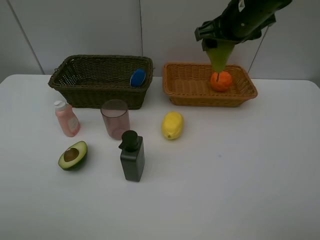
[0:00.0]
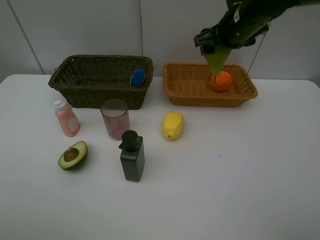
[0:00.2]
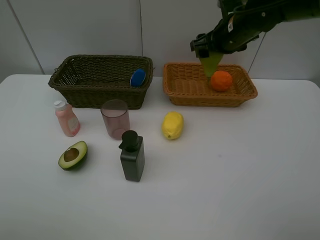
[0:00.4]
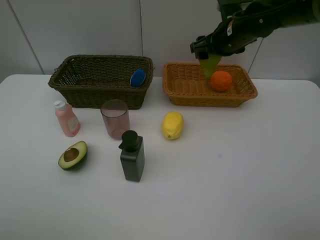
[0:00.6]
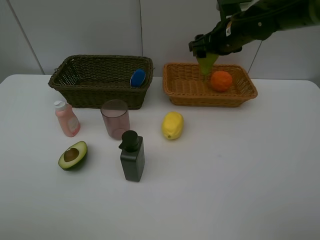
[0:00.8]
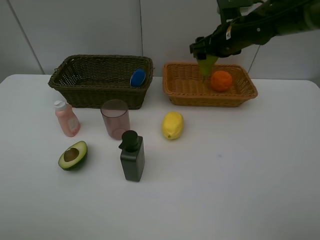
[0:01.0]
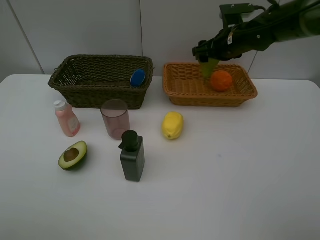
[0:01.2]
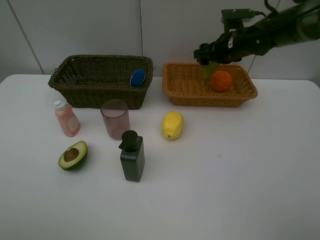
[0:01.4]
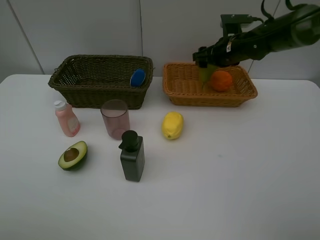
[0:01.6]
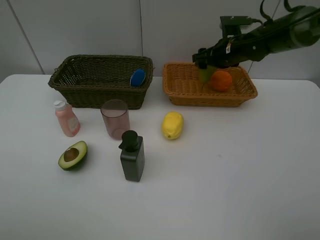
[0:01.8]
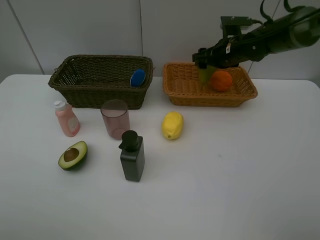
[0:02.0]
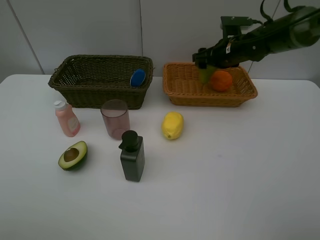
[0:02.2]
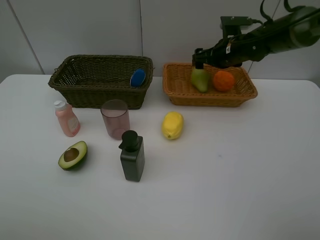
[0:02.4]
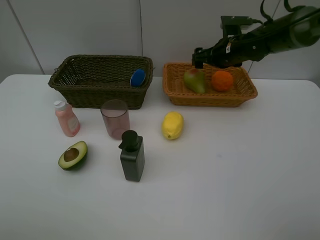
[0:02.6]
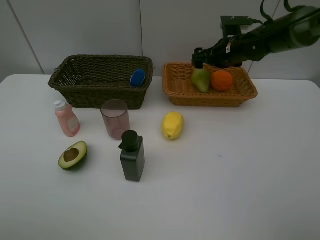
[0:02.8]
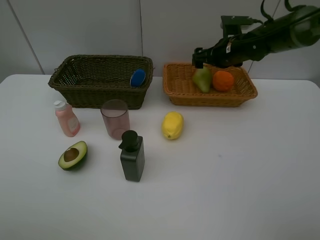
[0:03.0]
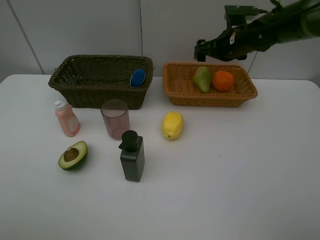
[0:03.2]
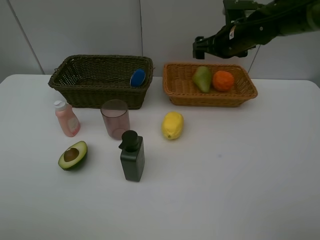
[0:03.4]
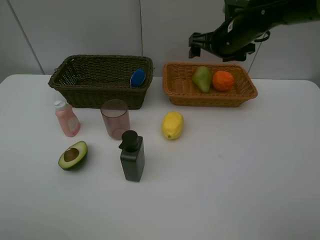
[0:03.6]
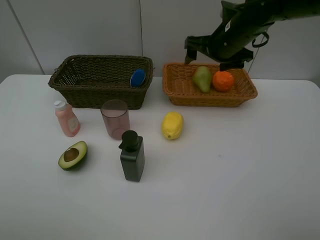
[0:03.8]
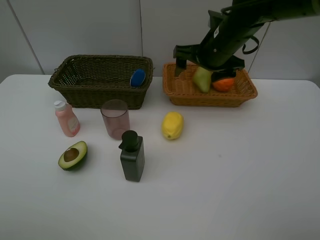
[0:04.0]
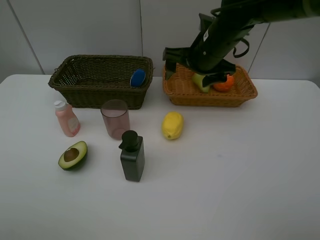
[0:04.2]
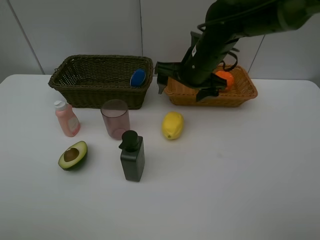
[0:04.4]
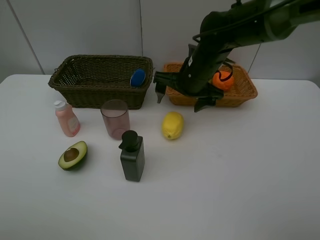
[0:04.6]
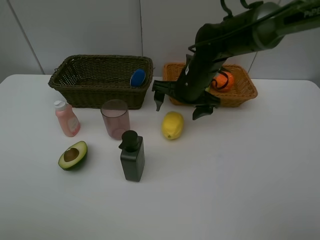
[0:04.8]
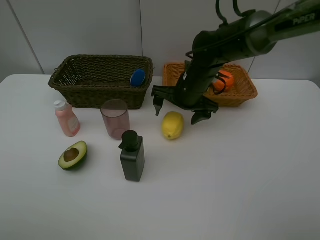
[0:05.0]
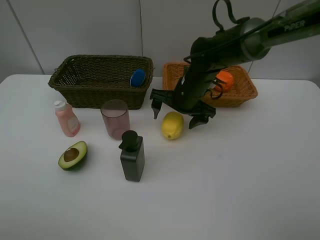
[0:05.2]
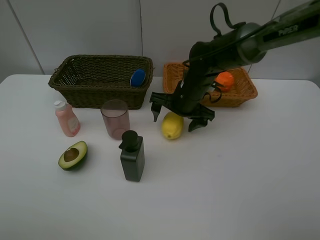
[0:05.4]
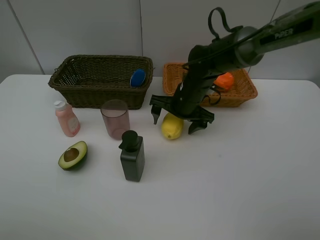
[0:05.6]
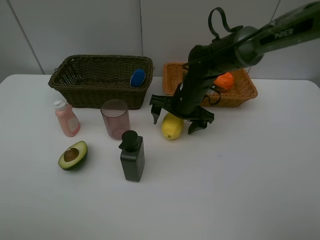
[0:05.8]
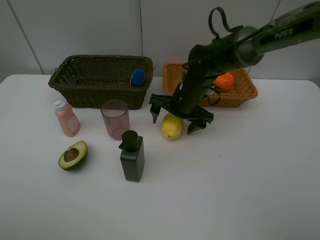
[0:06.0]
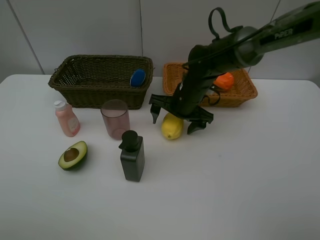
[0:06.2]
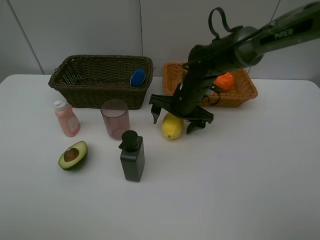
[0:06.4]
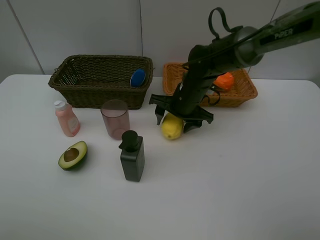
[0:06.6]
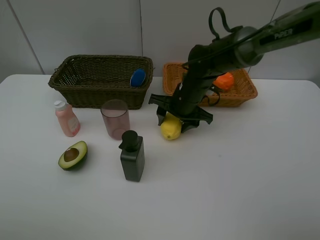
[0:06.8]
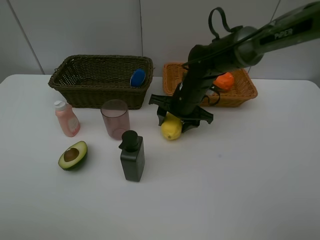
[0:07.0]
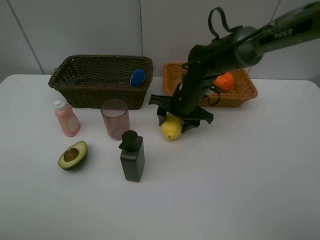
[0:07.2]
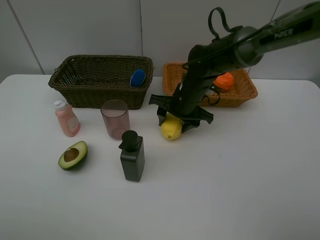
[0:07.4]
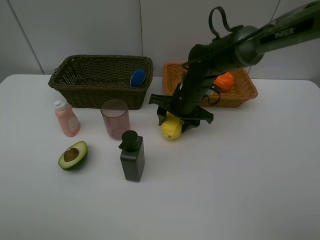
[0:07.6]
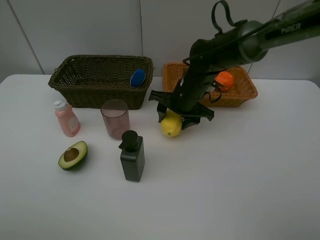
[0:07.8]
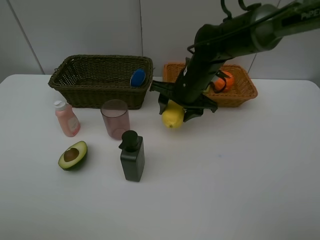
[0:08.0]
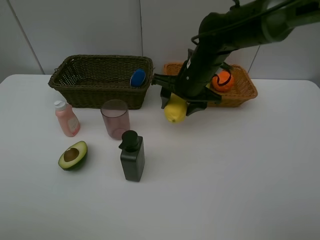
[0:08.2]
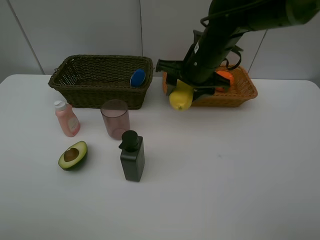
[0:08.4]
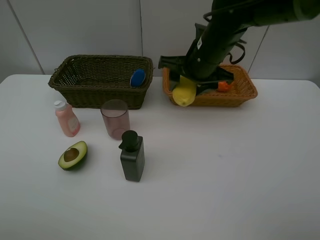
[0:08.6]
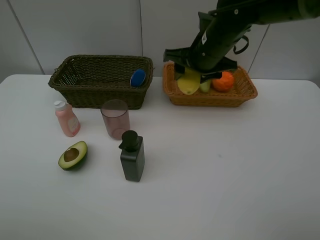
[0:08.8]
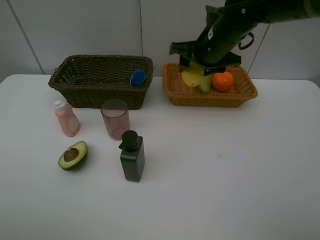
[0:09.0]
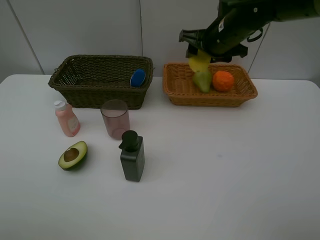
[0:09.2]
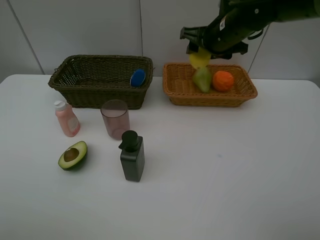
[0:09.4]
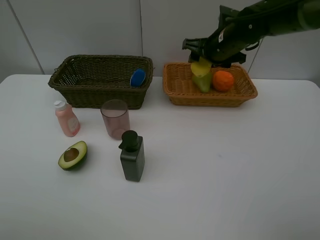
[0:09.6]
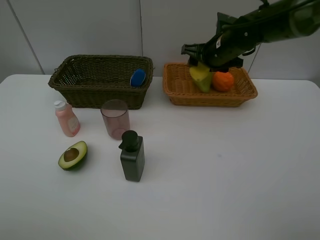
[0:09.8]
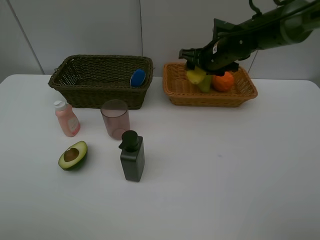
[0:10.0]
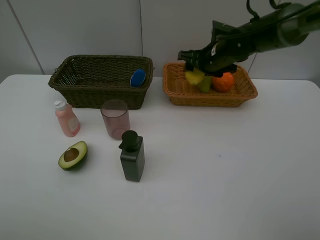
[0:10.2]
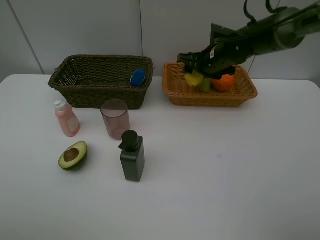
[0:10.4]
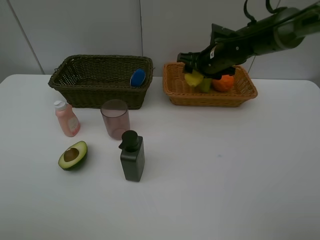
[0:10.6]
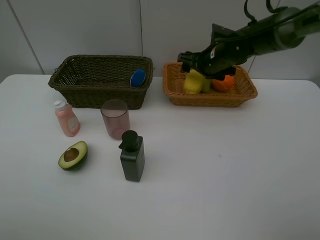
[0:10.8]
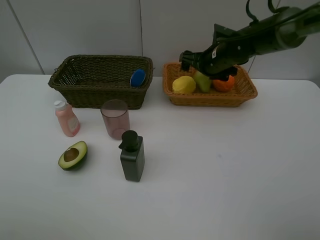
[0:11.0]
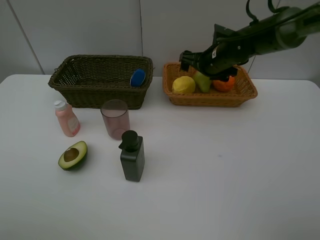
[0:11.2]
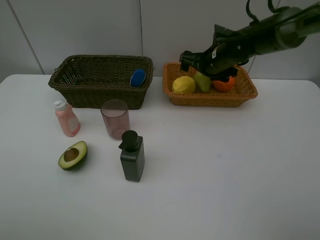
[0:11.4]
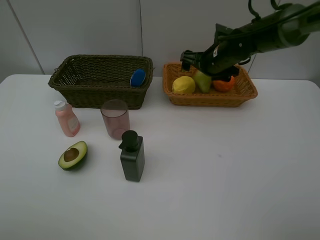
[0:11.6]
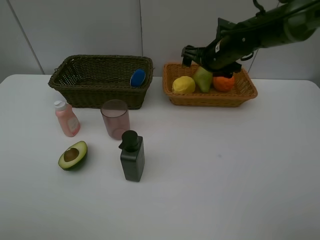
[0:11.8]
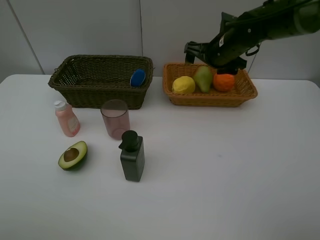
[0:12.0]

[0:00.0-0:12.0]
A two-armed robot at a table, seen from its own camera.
Task of the whole recording: Place multiple objects separately in different baskets.
Step, 0:00.0 to 0:02.8: Place the pear in the light basket with right gripper.
Step, 0:03.0 to 0:08.0: Pick up the lemon with right gripper.
Step, 0:08.2 to 0:11.2: Place the lemon in the light basket with right gripper.
0:00.0 to 0:01.6: The right gripper is displaced downward and forward by roughly 15 cm.
0:01.6 to 0:03.0: The right gripper opens up.
0:03.0 to 0:04.4: The right gripper moves to the left and backward, roughly 15 cm.
0:04.4 to 0:06.0: The right gripper shifts about 10 cm downward.
0:06.0 to 0:07.6: The right gripper closes.
0:07.6 to 0:09.0: The right gripper heads upward, covering some 10 cm.
0:09.0 to 0:10.4: The right gripper heads downward and forward, covering some 10 cm.
0:10.4 to 0:12.0: The right gripper opens.

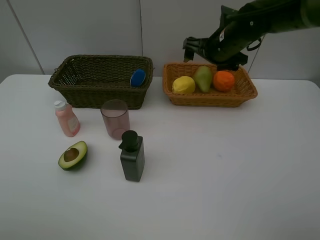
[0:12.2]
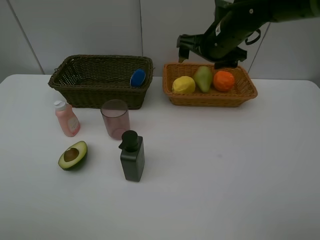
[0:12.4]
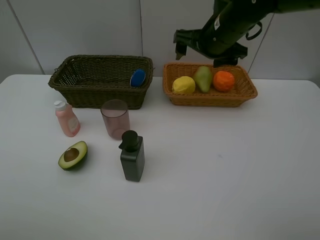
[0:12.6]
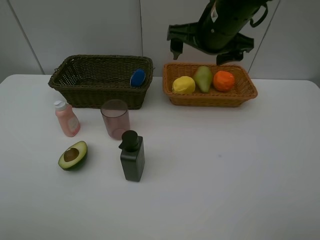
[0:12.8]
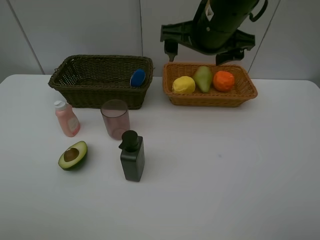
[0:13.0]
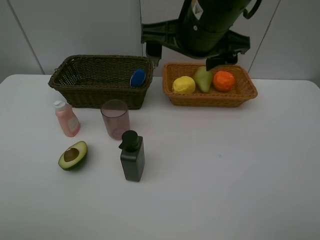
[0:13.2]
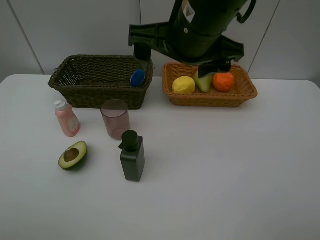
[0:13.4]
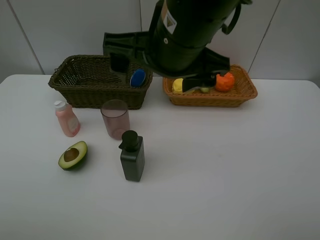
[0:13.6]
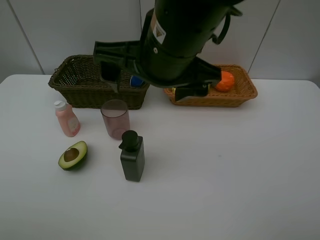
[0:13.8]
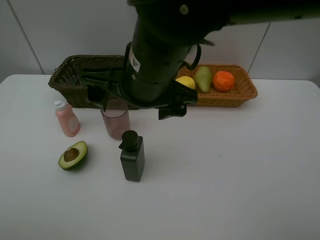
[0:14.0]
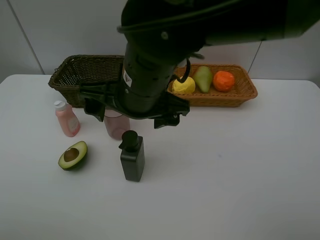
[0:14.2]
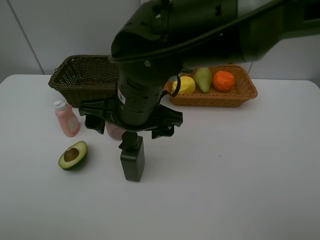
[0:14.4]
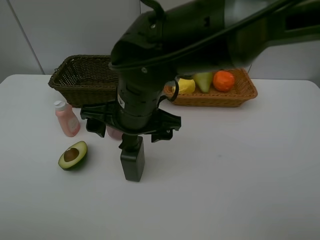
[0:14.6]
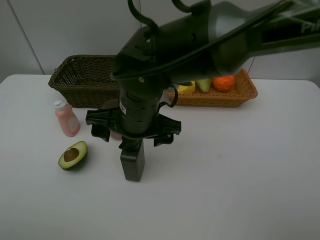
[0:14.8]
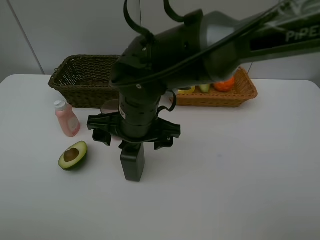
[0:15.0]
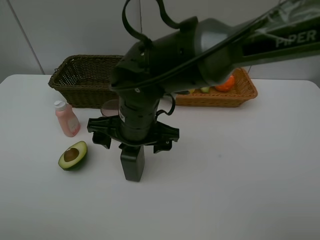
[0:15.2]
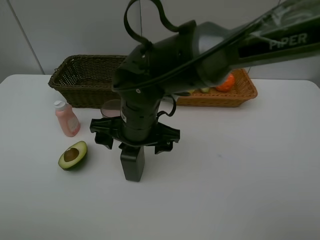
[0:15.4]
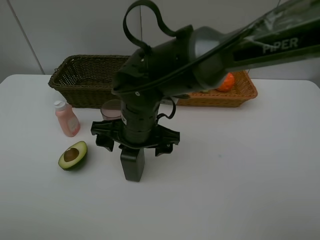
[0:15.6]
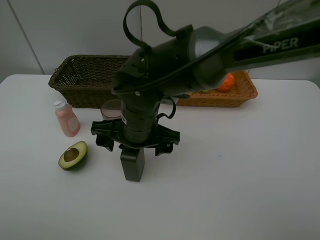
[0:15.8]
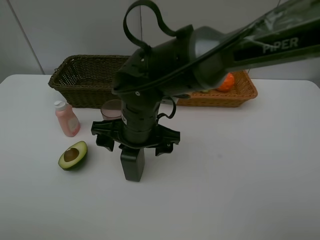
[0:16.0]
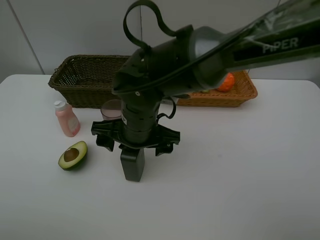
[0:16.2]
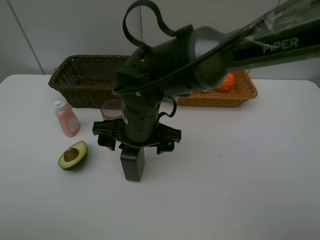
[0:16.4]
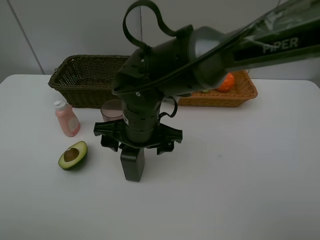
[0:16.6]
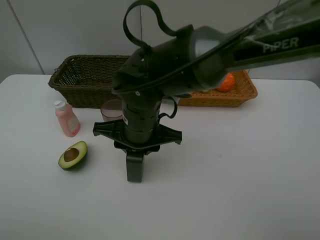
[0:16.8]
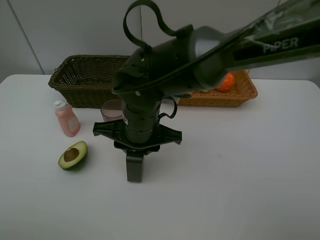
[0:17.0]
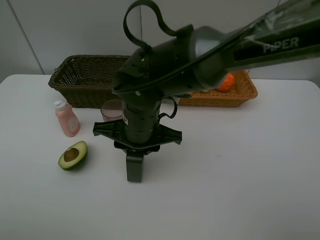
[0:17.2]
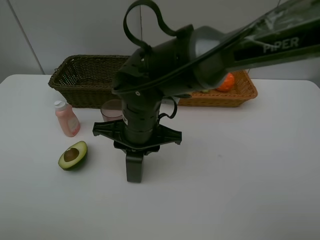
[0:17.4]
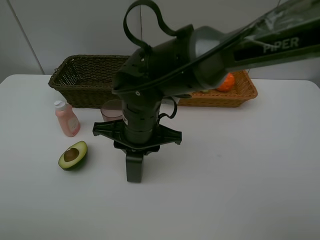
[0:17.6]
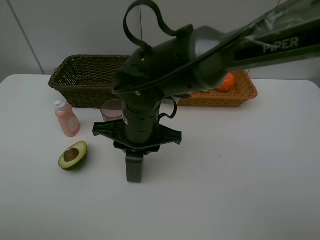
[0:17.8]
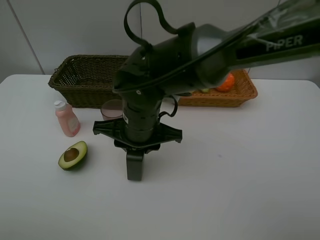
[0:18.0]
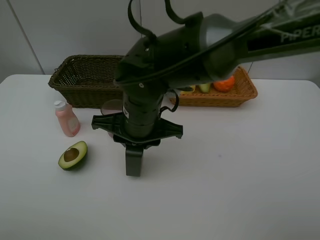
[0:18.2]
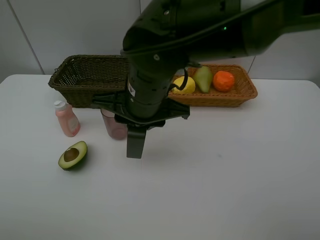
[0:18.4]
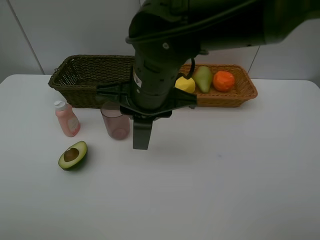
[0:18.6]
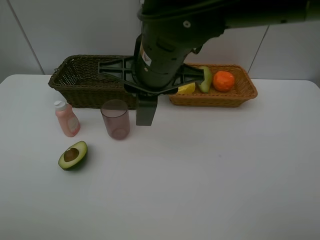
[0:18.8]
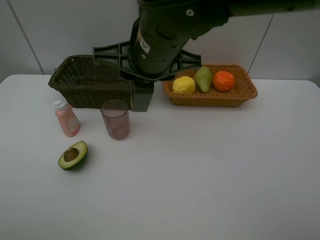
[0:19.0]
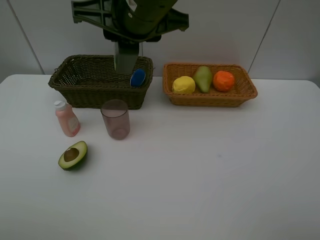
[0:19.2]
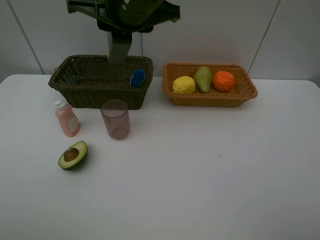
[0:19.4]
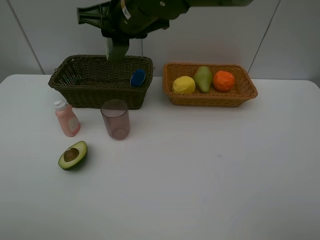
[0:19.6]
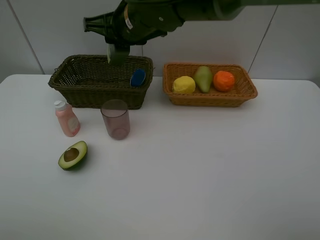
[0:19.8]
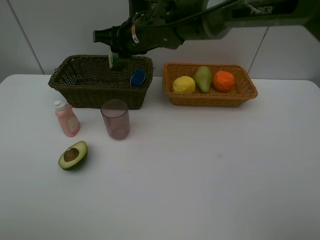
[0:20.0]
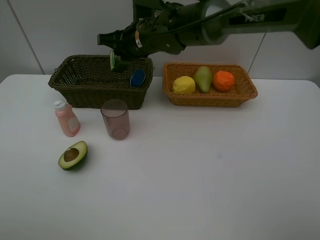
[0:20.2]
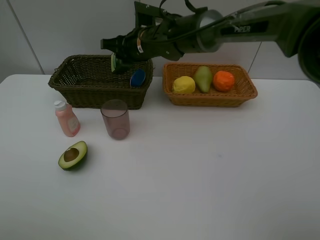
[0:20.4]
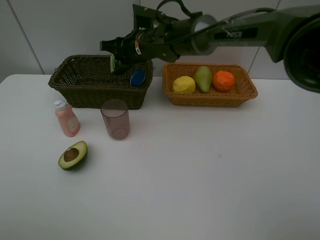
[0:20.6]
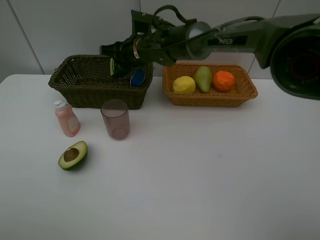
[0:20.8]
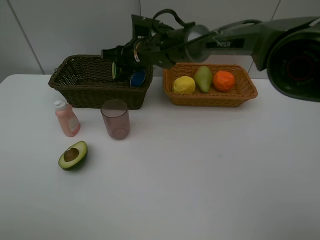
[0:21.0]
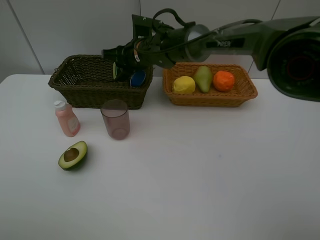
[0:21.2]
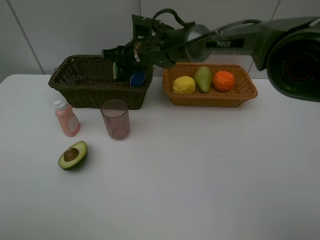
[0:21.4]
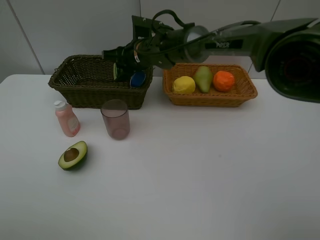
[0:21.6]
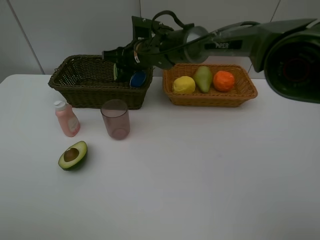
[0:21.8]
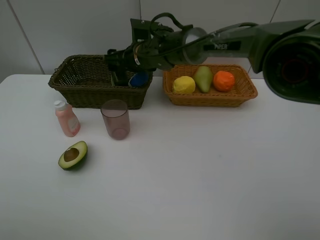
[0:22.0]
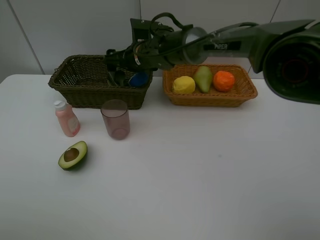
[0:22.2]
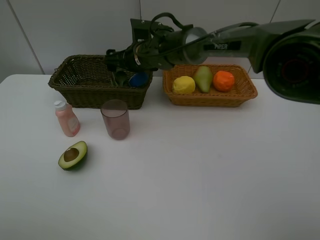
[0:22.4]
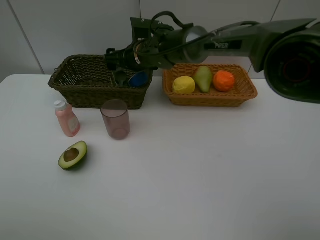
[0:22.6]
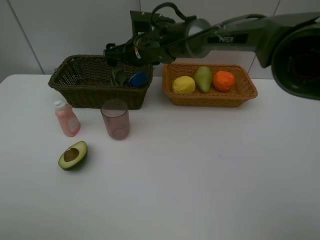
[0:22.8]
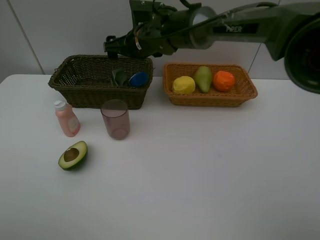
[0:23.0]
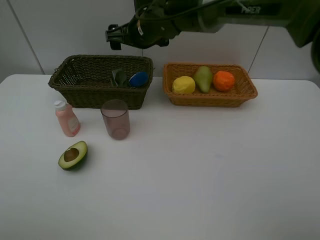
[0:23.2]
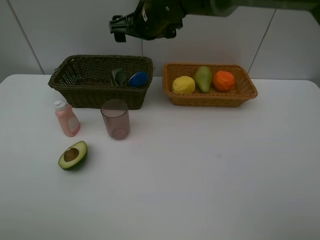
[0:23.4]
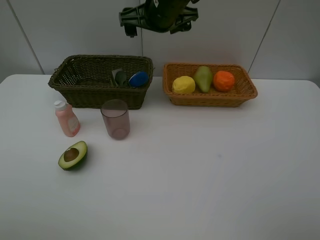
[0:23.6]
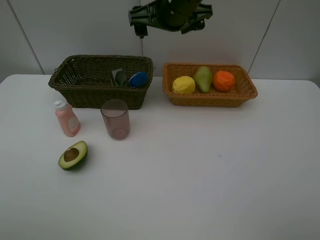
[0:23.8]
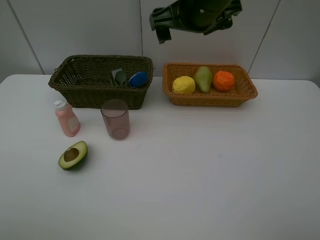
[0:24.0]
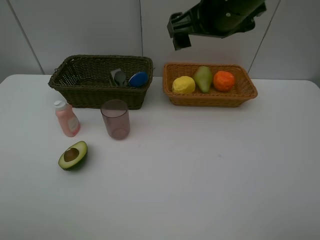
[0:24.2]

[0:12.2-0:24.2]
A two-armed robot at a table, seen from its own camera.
Task of the whole recording: Place multiple objects separately in different baskets.
Step, 0:12.2 to 0:18.2: Pick up the hard facial cleanser with right gripper.
Step, 0:18.4 to 0:22.8: Place the hard facial cleanser in the dark basket with right gripper.
0:12.2 to 0:13.8: The right gripper is displaced backward and to the left by some 25 cm.
0:13.8 to 0:15.2: The right gripper shifts some 15 cm downward.
0:15.2 to 0:16.6: Neither gripper changes place.
0:16.6 to 0:18.2: The right gripper closes its fingers.
0:18.2 to 0:19.8: The right gripper travels forward and upward by about 15 cm.
0:19.8 to 0:21.2: The right gripper goes about 10 cm downward and forward.
0:21.2 to 0:22.6: The right gripper opens.
0:22.6 to 0:24.2: The right gripper moves upward, backward and to the right, some 25 cm.
